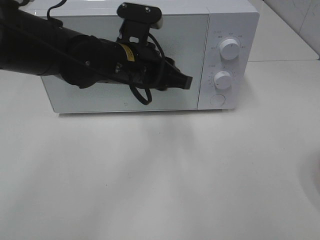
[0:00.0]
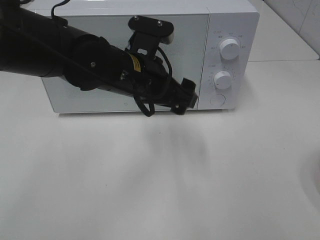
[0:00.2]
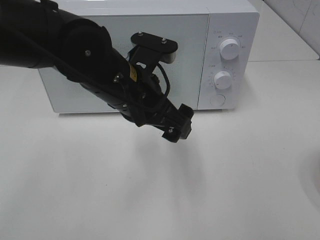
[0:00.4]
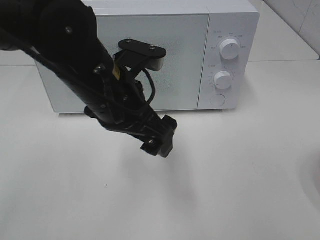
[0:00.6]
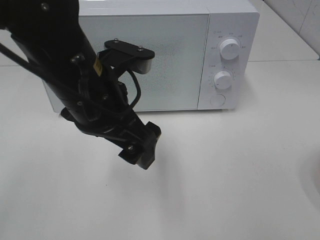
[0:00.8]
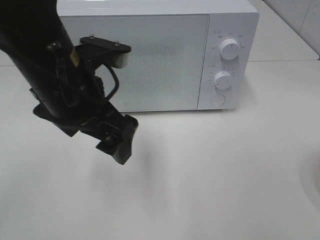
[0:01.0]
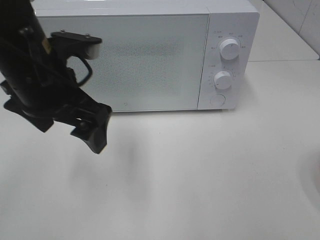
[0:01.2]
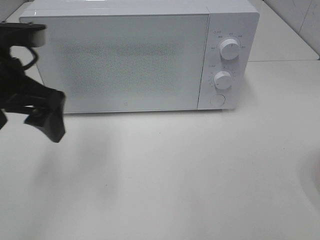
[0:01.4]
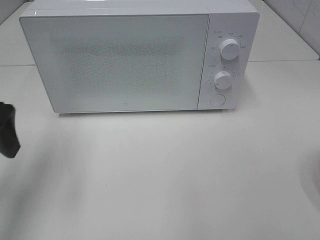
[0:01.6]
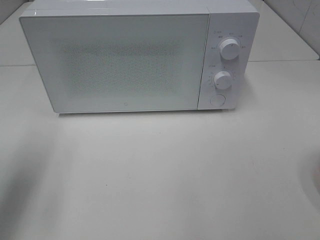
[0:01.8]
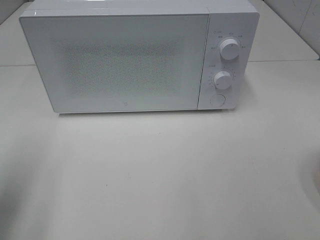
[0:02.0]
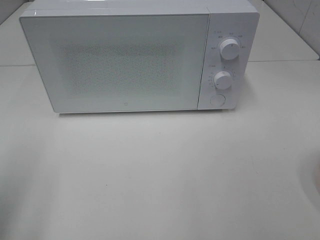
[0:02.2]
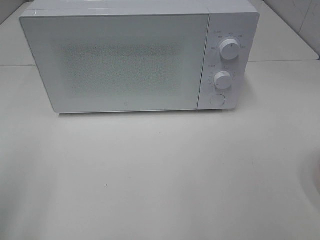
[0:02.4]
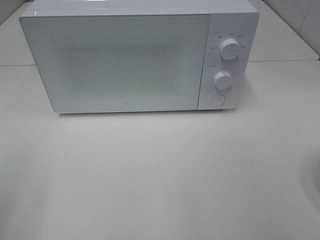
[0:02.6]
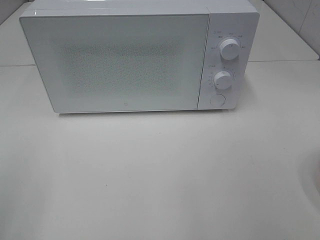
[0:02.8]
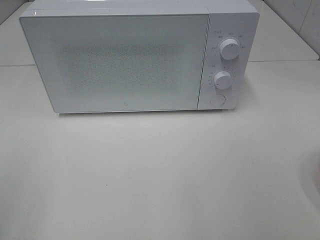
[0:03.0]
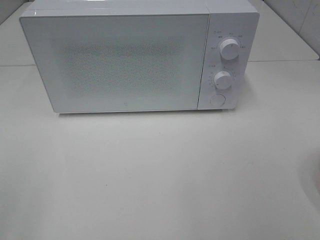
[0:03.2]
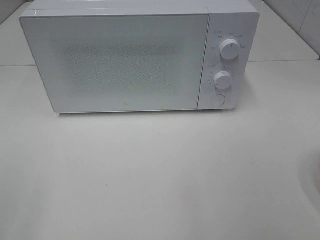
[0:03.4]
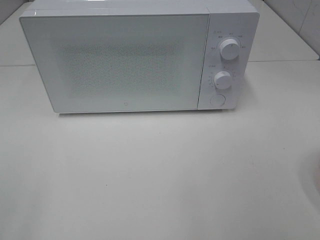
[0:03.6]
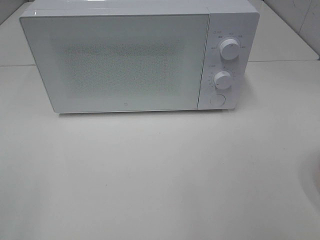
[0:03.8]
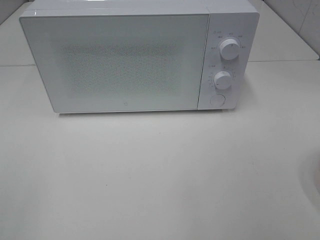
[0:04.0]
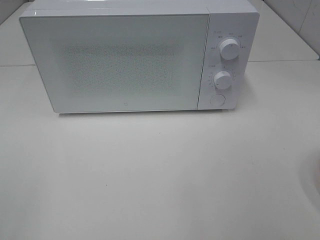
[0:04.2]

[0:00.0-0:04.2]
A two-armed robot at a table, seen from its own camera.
Task of the whole recording: Heat the burger.
0:00.0 to 0:01.4: The left gripper moves to the left and backward, roughly 15 cm, and opens up.
0:01.4 to 0:02.8: The left gripper shifts approximately 25 cm backward and to the left.

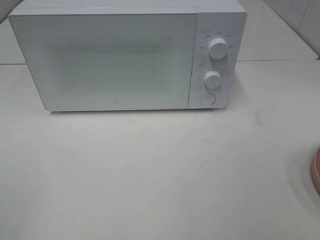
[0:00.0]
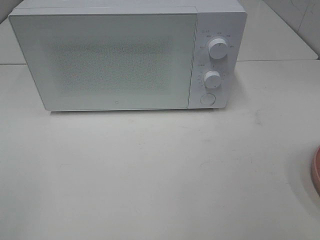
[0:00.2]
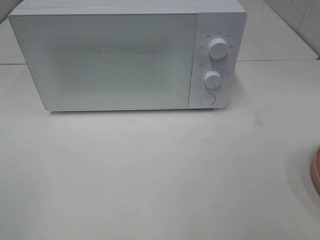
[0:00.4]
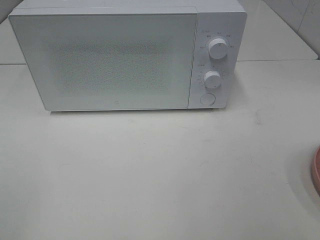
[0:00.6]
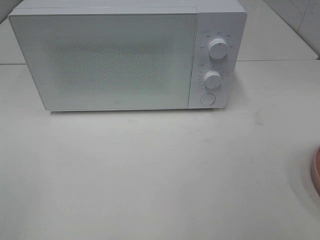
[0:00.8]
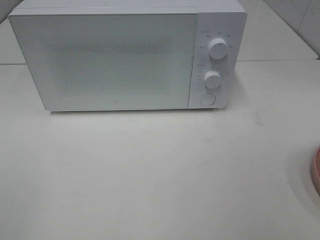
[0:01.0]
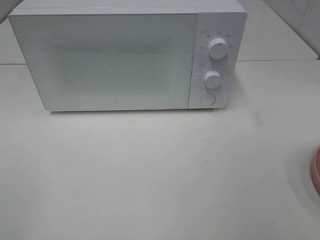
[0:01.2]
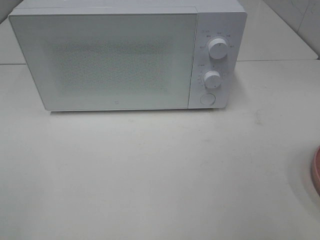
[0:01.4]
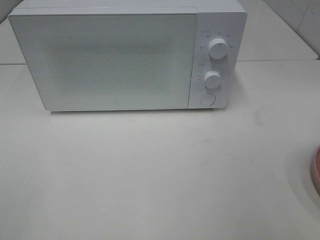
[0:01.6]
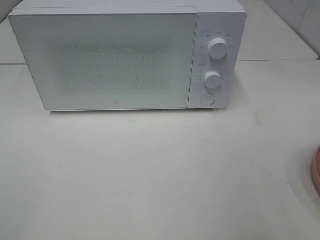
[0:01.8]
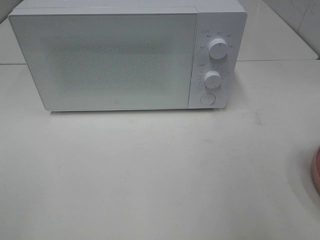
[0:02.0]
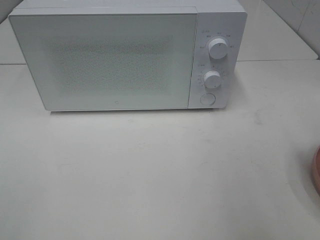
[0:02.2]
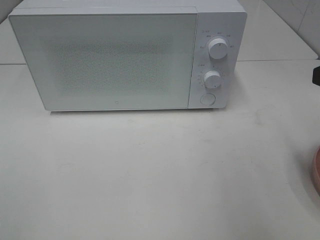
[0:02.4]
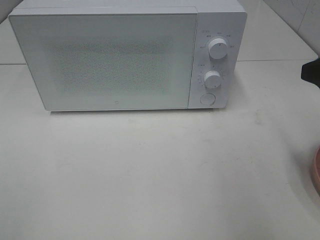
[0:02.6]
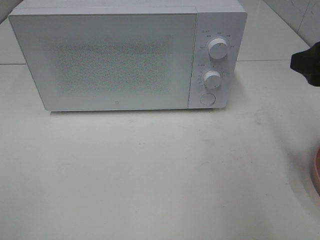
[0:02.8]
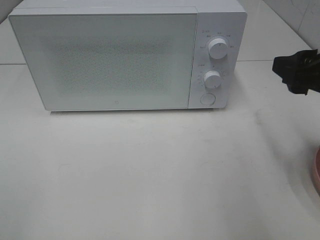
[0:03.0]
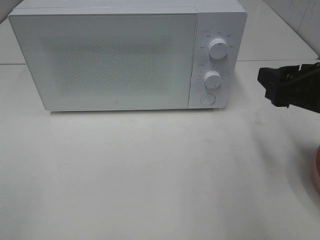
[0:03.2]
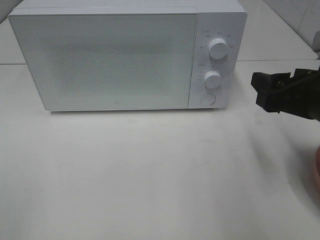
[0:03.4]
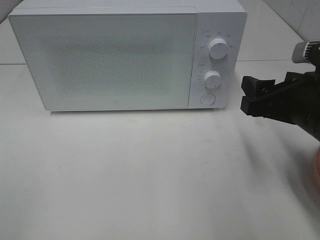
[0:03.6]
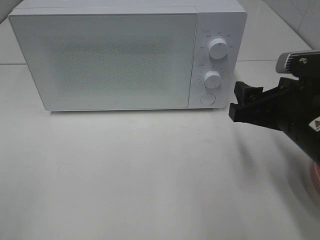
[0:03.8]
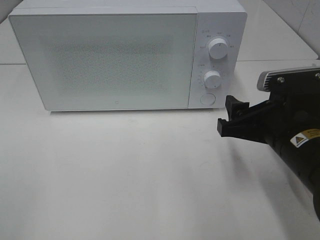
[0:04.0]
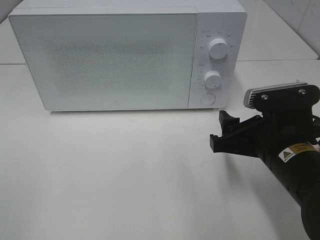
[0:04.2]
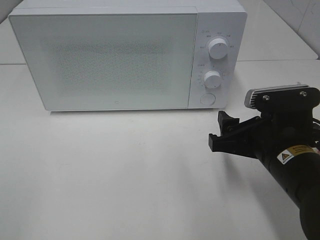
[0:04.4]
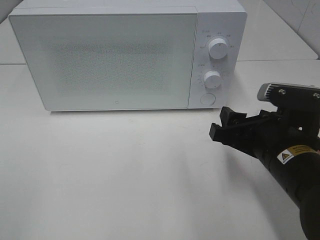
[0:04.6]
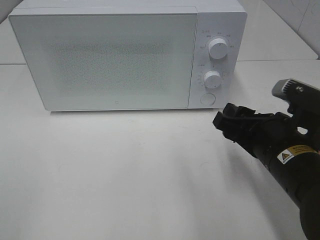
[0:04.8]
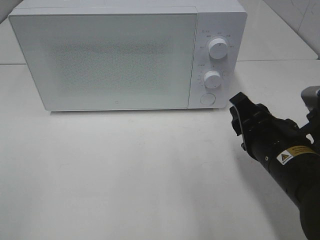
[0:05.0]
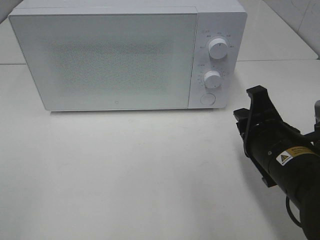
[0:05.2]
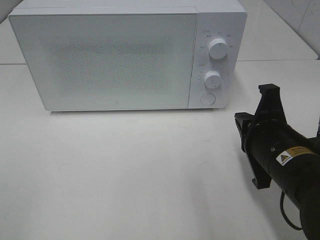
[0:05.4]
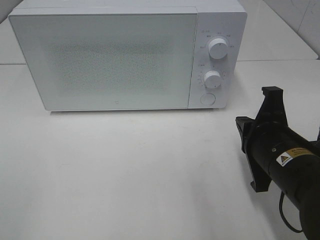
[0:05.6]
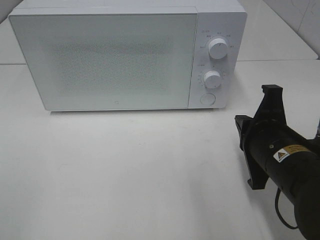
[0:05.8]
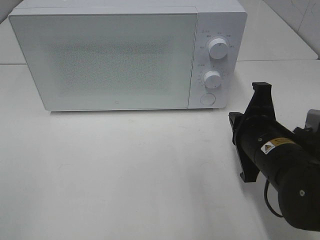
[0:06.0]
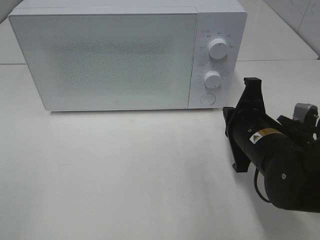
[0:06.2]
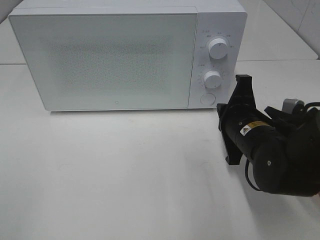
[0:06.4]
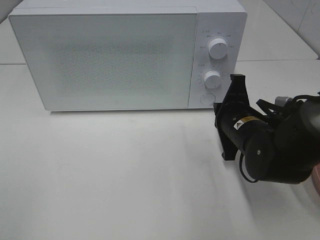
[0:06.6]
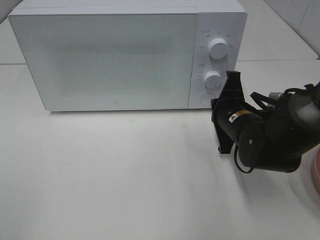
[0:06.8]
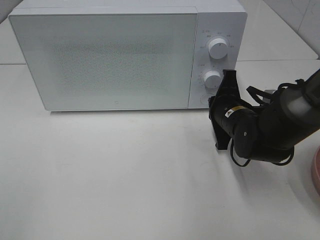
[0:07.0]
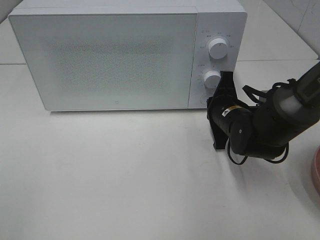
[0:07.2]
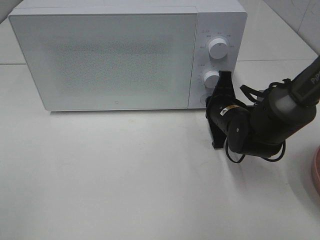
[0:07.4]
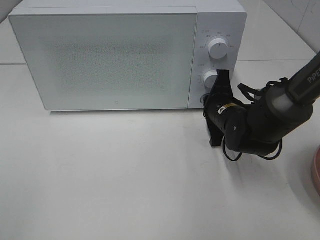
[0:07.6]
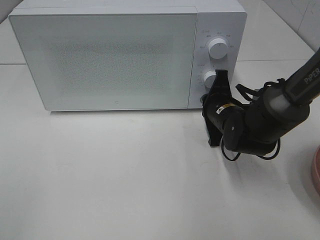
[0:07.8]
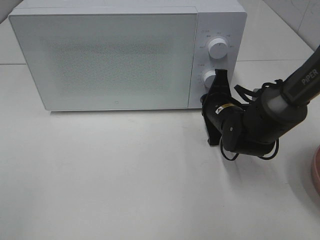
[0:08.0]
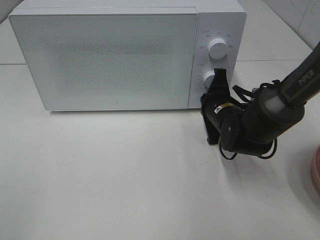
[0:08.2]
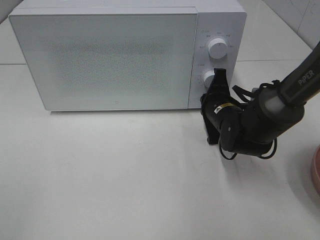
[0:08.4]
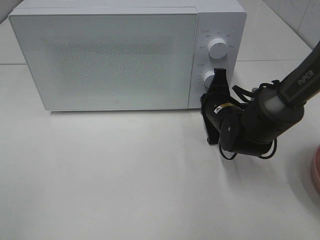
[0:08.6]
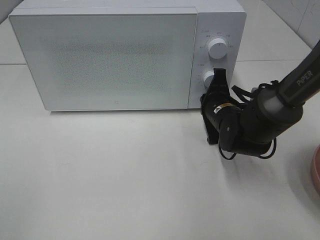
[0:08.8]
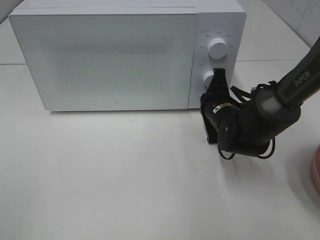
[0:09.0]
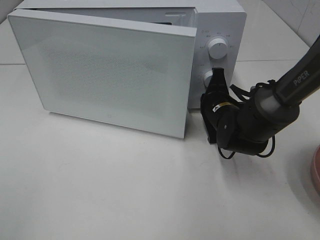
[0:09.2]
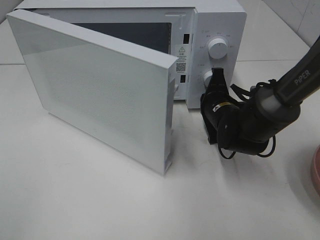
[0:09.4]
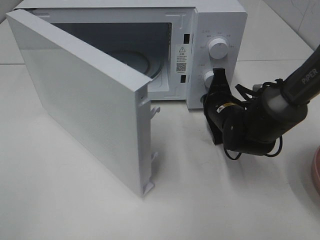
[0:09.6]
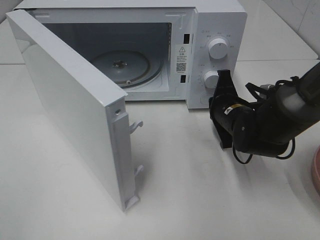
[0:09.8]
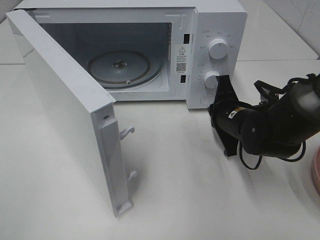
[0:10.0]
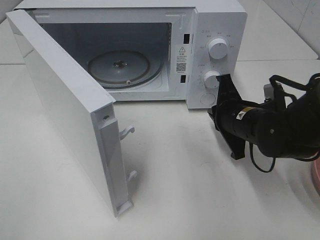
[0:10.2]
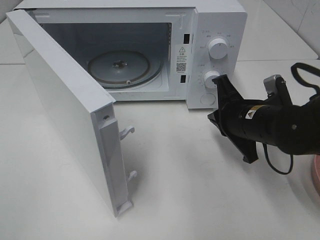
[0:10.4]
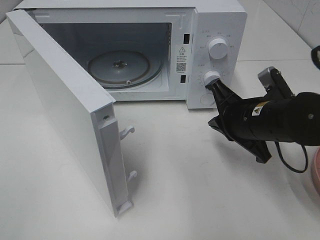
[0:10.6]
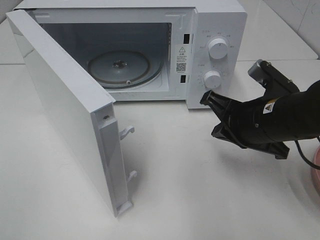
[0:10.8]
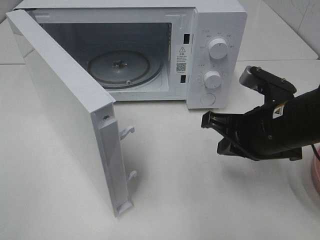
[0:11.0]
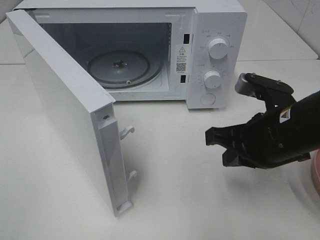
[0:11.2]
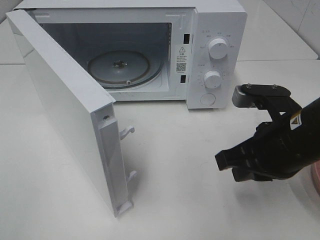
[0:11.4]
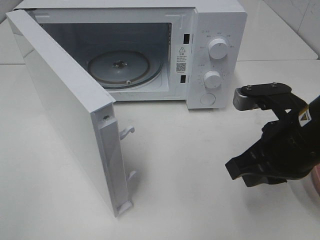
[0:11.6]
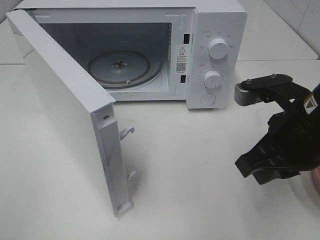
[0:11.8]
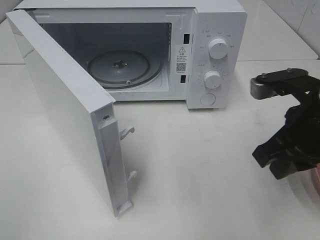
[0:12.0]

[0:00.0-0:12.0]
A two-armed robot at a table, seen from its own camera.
Task of the whole recording: Heat the burger.
Step, 0:00.0 to 0:10.4: Right hand: press the switch.
0:01.6 to 0:03.0: The right gripper is displaced forward and downward by roughly 15 cm.
0:03.0 to 0:04.4: The right gripper moves downward and to the left, approximately 10 cm.
0:04.4 to 0:06.0: The right gripper closes its fingers.
0:06.0 to 0:07.6: The right gripper is displaced forward and downward by approximately 15 cm.
0:07.6 to 0:09.0: Both grippers stay about where they are.
0:09.0 to 0:10.4: The right gripper goes about 10 cm backward and upward.
0:10.4 to 0:12.0: The right gripper is displaced upward and backward by roughly 10 cm.

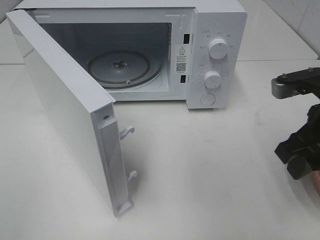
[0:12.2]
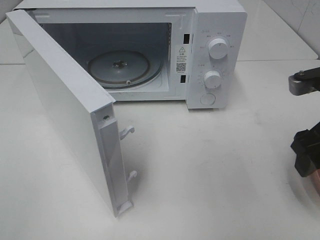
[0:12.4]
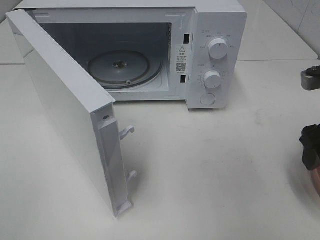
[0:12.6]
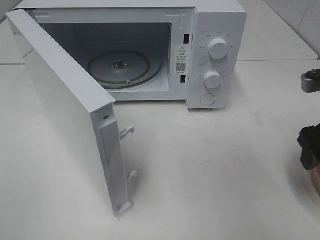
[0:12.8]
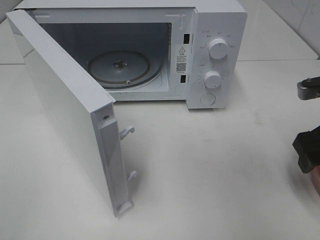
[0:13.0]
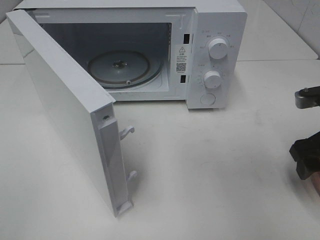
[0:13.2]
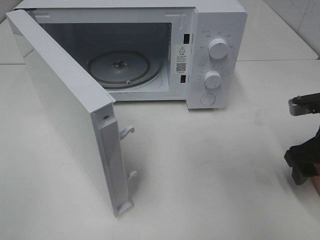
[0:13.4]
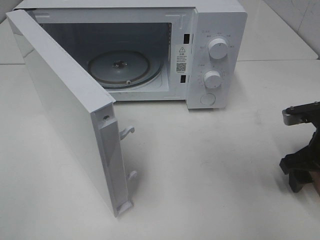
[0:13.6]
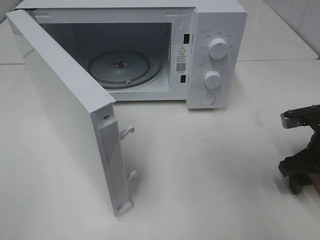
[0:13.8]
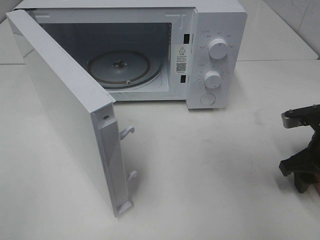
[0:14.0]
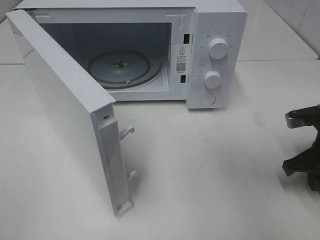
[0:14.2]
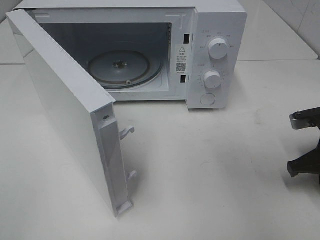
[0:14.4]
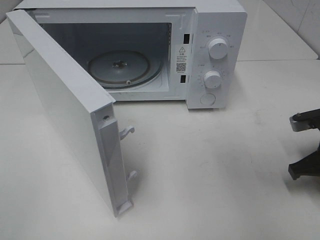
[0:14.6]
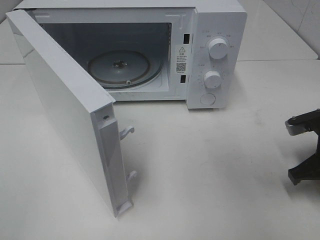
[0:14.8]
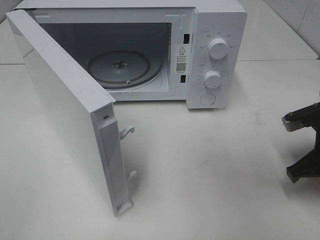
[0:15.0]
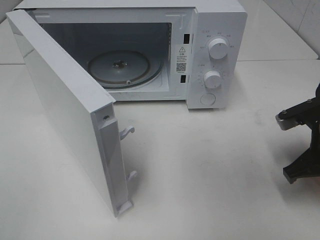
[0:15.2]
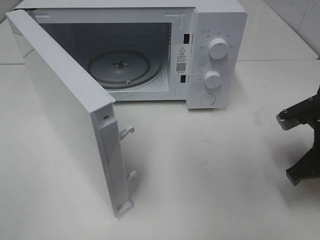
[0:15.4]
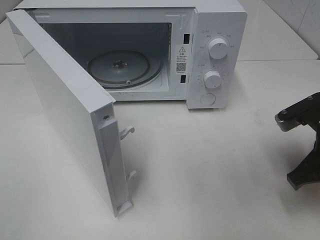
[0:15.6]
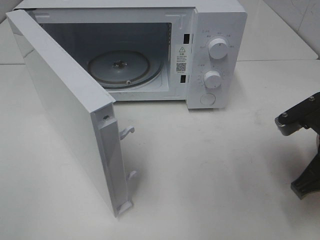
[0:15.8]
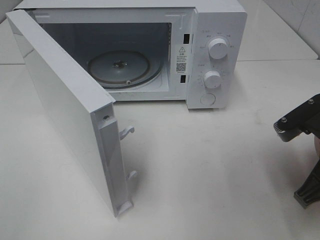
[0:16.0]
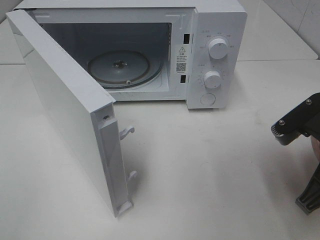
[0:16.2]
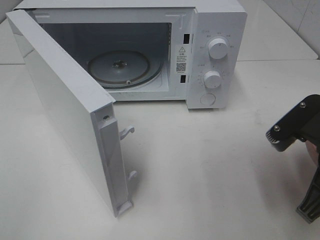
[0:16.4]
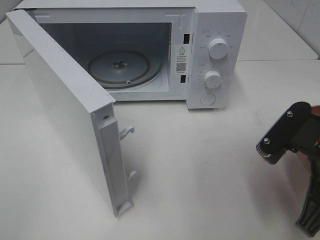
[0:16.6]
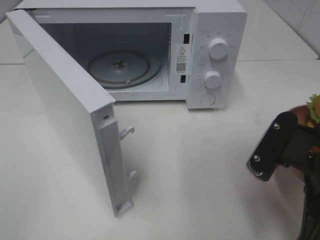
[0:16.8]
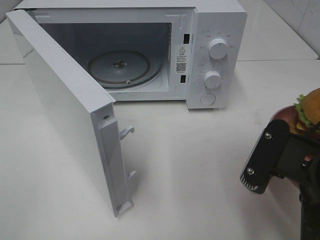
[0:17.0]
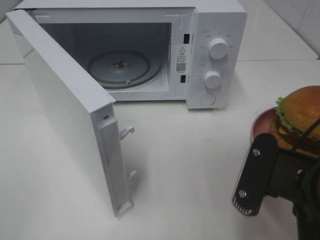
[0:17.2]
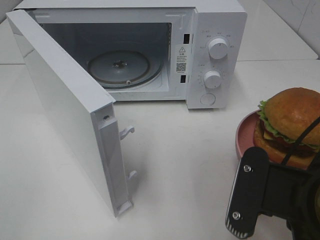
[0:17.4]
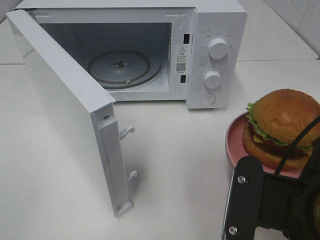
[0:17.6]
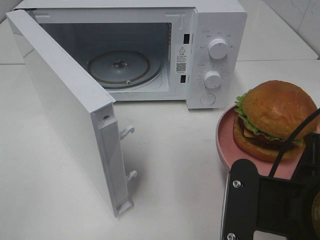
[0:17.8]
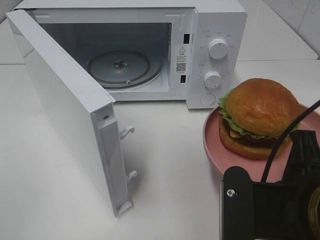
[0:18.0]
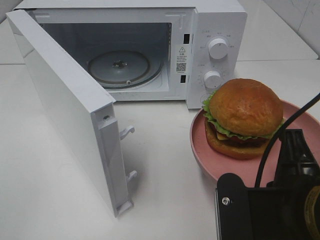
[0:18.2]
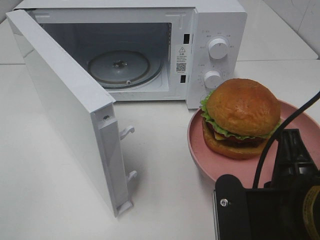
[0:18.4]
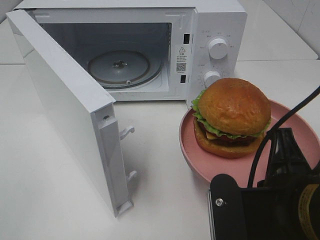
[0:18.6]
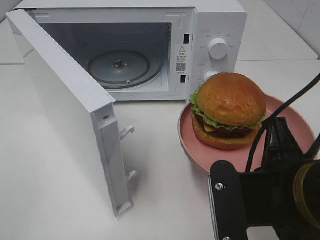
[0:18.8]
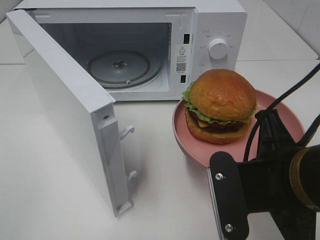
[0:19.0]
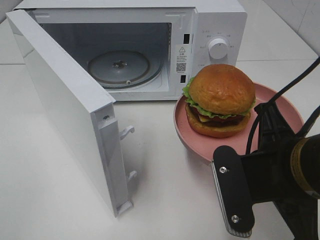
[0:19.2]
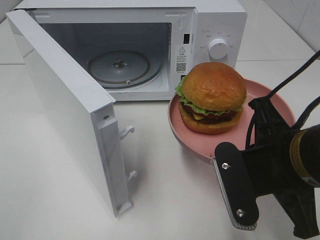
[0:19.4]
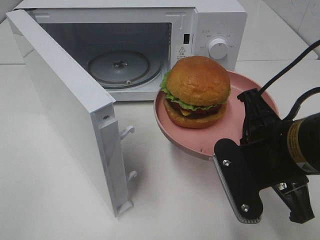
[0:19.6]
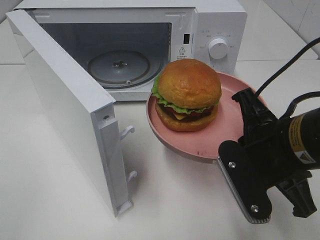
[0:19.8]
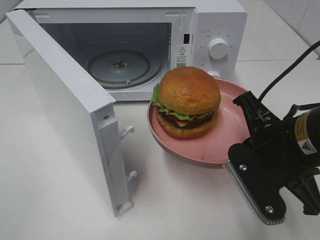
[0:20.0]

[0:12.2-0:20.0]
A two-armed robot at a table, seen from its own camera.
Task of the whole recording: Heat the burger.
Step, 0:12.2 to 0:15.0: Right hand: grab the plate with the hamburger.
0:12.2 to 0:13.8: The right gripper goes about 10 cm downward and to the right.
0:13.8 to 0:15.4: The right gripper shifts by approximately 5 cm, and closes.
0:15.4 to 0:16.8: The right gripper travels backward and to the left by about 10 cm.
0:16.8 to 0:18.4: The right gripper ends up some 5 cm from where it was.
0:18.4 to 0:20.0: The right gripper goes about 10 cm forward.
